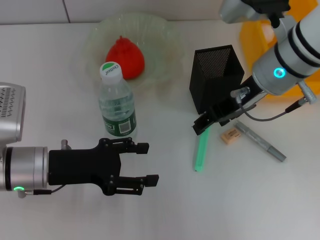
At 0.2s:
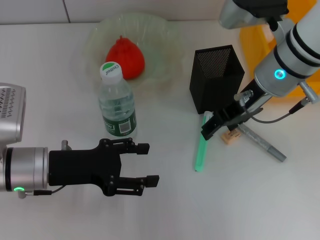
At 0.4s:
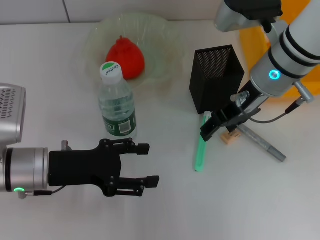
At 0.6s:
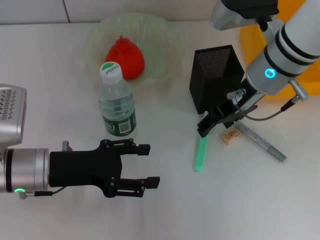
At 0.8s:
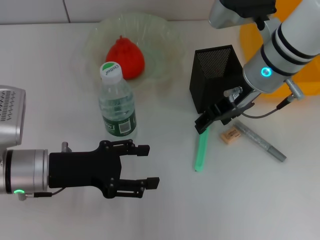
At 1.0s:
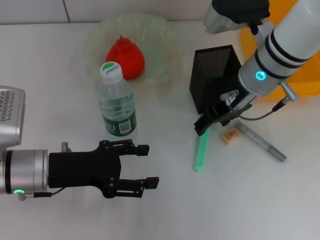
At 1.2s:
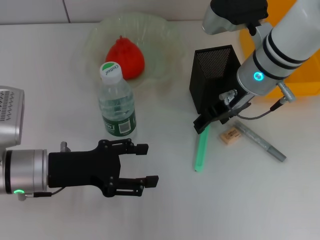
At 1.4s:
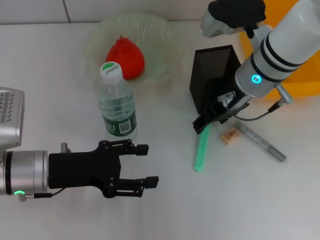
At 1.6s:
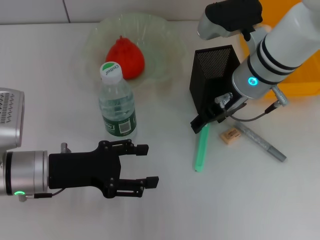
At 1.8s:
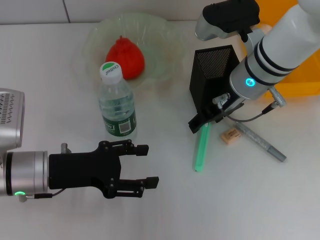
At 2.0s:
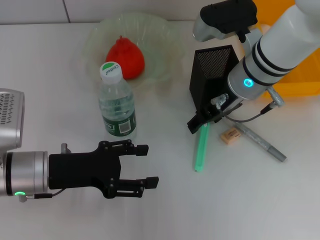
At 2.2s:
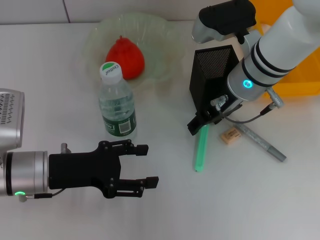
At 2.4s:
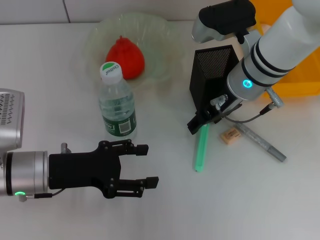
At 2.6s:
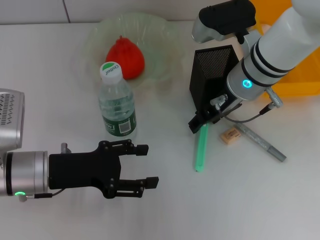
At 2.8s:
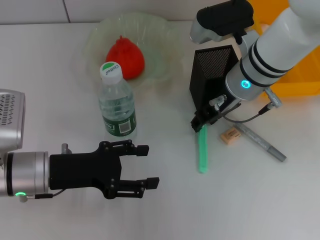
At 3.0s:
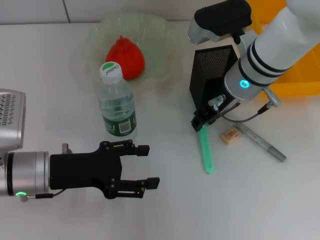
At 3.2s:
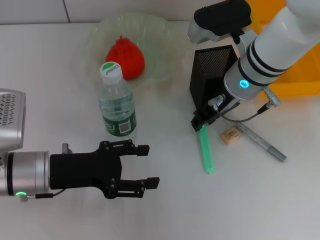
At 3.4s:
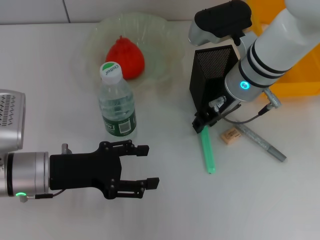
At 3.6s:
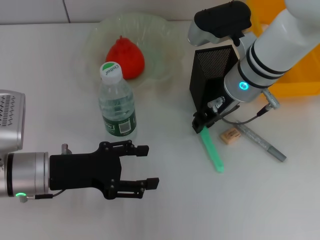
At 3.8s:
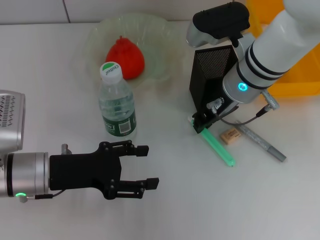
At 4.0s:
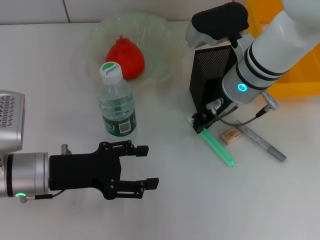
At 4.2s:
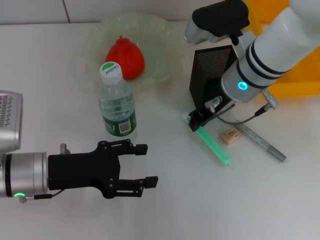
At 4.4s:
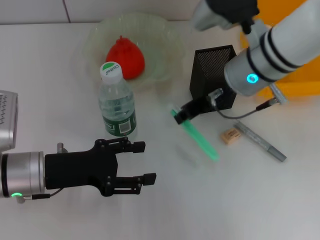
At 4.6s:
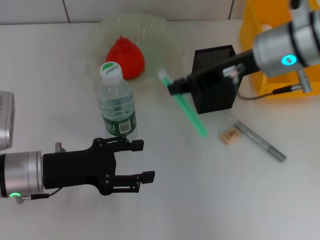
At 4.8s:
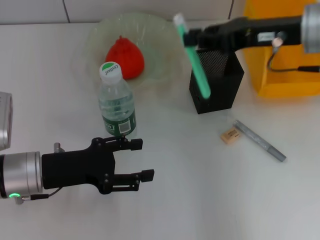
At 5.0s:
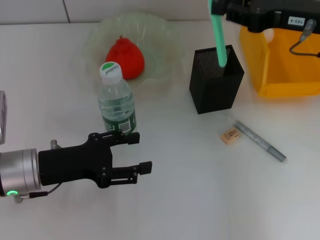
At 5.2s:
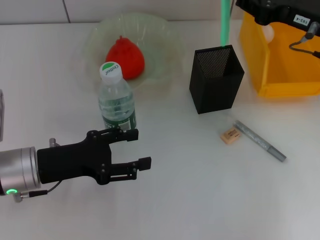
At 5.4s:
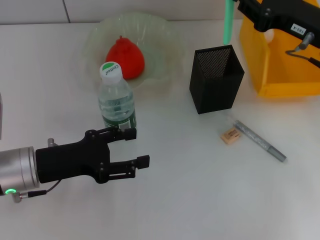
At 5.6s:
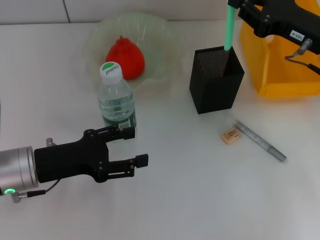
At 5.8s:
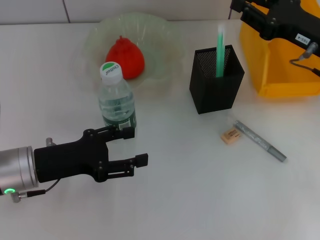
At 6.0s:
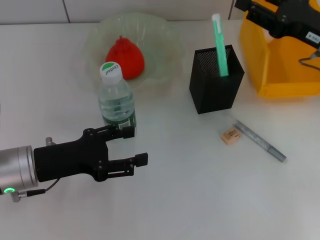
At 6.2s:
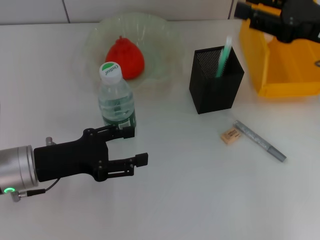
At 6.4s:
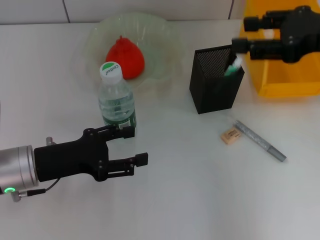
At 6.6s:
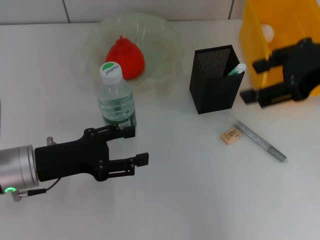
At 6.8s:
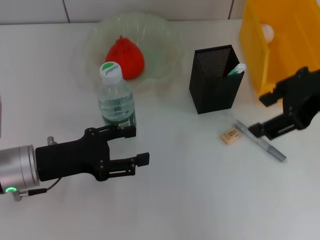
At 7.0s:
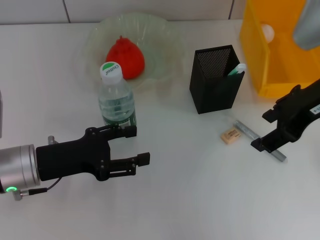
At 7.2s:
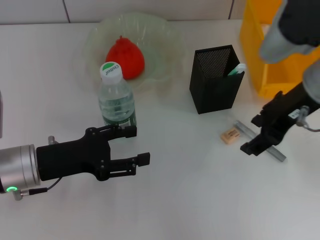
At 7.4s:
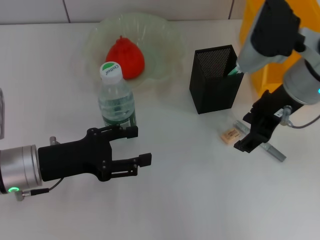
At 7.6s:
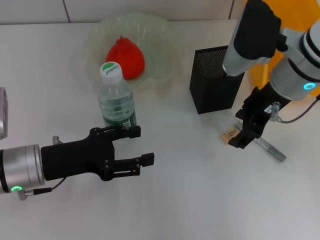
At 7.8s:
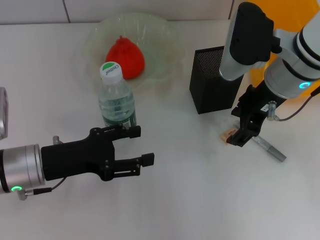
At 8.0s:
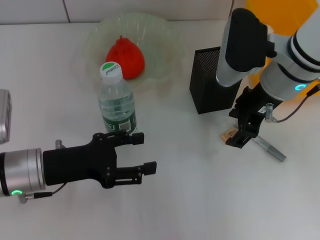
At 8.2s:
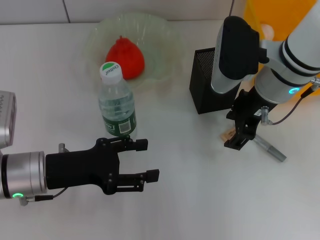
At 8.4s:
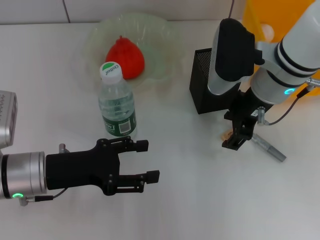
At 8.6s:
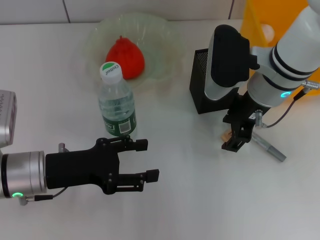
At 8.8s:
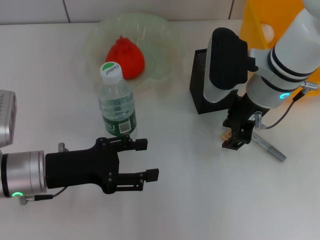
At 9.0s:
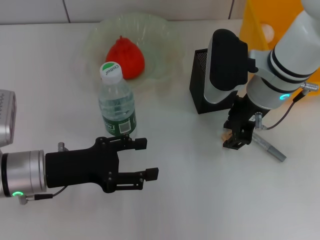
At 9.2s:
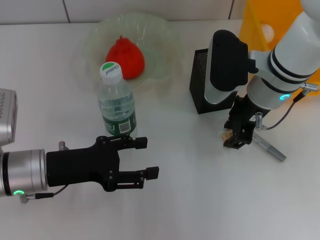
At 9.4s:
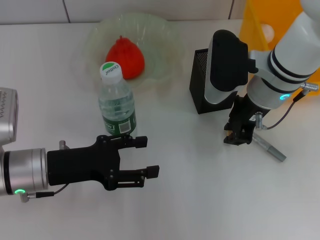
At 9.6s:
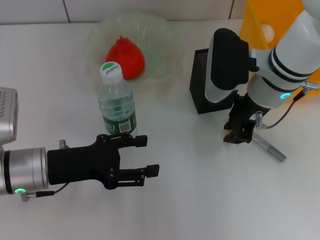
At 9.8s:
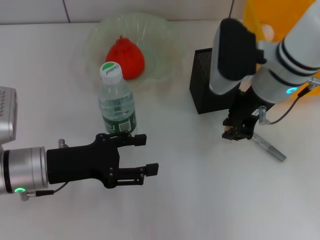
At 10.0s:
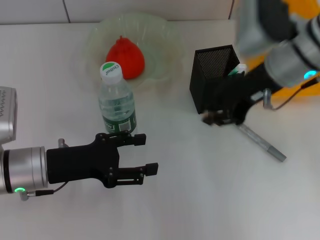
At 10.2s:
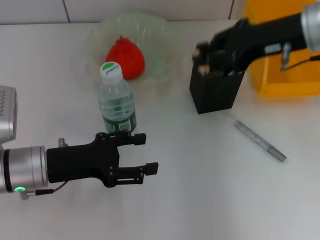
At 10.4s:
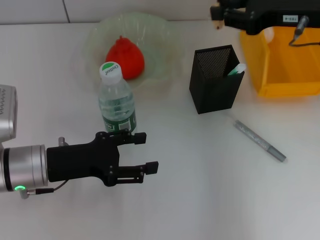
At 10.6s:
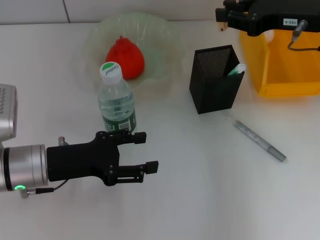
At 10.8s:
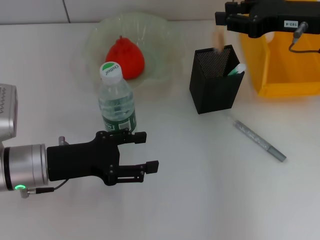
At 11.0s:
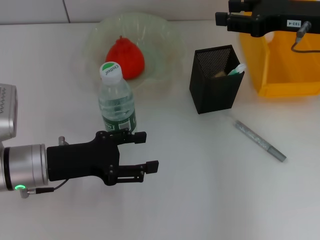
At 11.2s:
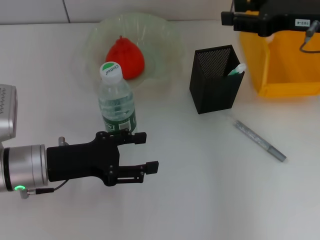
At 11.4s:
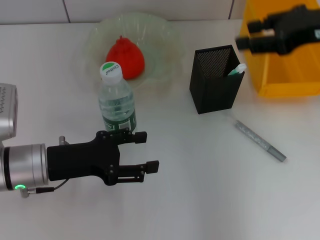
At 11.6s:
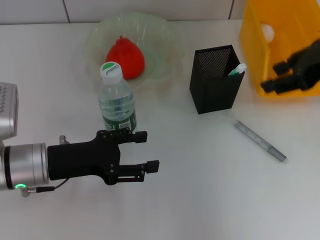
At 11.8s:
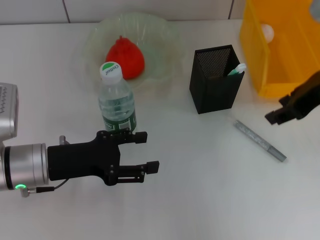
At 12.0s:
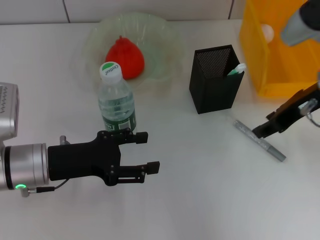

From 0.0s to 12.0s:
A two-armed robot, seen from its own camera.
Step, from 0.0s to 3.8s: Grab the blue utility knife with the right hand.
Step, from 4.0s to 6.2s: Place the blue utility knife into the pen holder with the right hand.
Step, from 6.4s to 9.4s: Grab the eraser with the right hand.
Step, from 9.6s to 11.2s: Put the eraser into the pen holder with the right hand.
From 0.0s to 1.6s: There are only small adjustments of the grippers.
From 1.6s to 3.0s: The right gripper closes.
From 3.0s to 4.4s: The right gripper closes.
From 4.4s to 6.0s: The right gripper heads to the right, covering roughly 15 cm, and opens.
From 6.0s to 7.6s: The right gripper goes roughly 10 cm to the left, and opens up.
From 7.6s to 9.0s: The grippers stay close to where they were, moving slightly.
From 9.0s to 10.4s: The right gripper goes some 10 cm to the right and upward, and closes.
From 10.4s to 12.0s: The right gripper moves roughly 5 cm, and opens up.

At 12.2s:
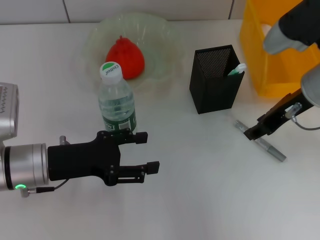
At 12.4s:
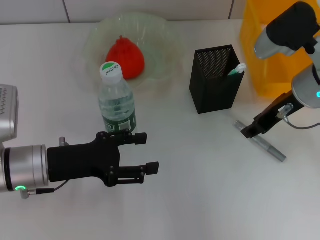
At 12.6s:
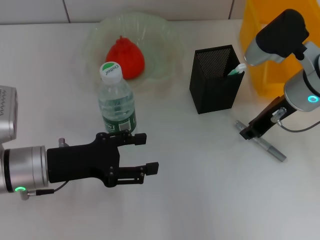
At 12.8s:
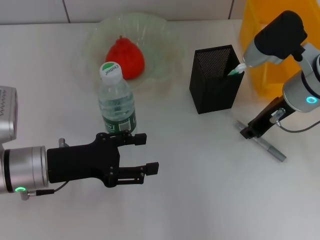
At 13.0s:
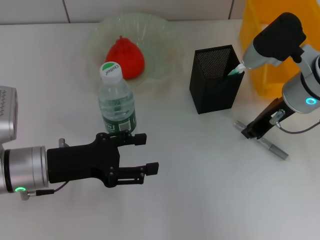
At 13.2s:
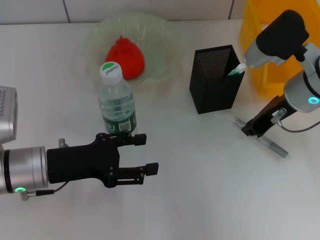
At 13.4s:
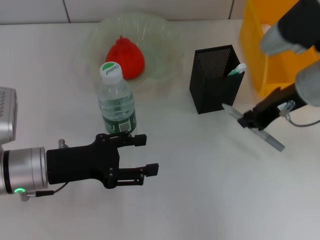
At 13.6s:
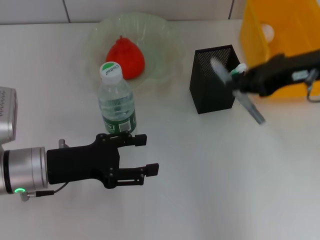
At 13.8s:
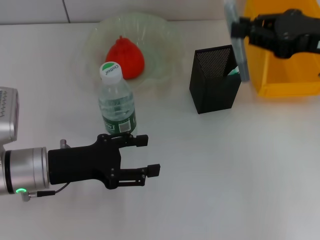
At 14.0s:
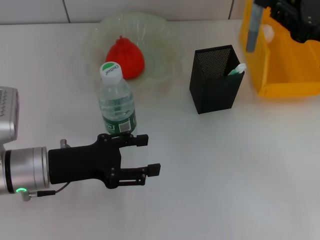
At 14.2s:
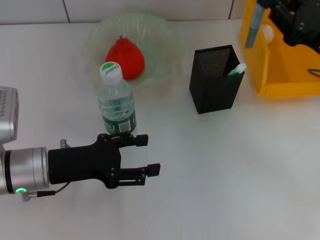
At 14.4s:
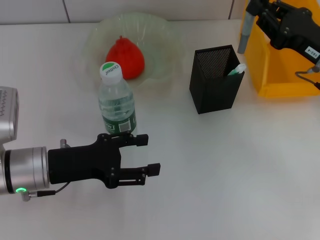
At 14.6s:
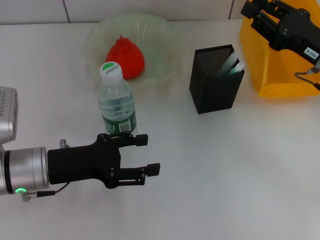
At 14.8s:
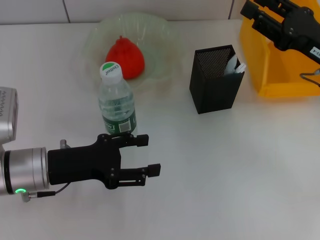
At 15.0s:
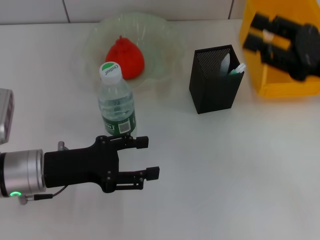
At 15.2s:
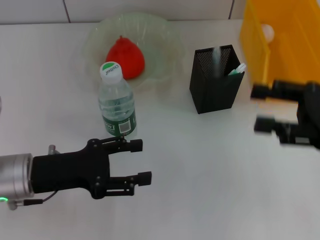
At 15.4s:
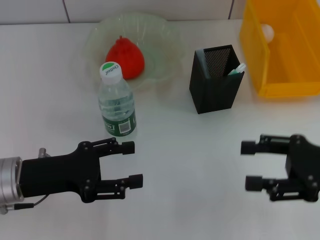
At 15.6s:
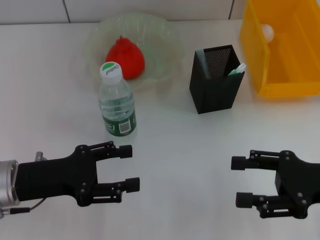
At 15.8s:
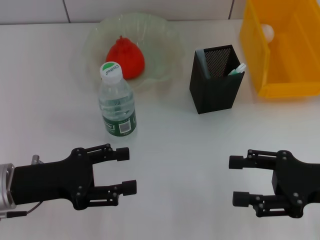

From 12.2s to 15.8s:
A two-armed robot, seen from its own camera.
Step, from 13.0s to 15.0s: Place the gray glue into the pen holder with the right hand.
From 12.2s to 14.0s: The right gripper travels to the right by roughly 5 cm, and closes its fingers.
From 14.0s to 15.8s: The right gripper travels backward and downward by some 10 cm, and opens.

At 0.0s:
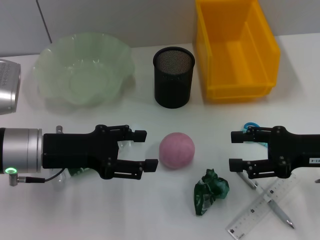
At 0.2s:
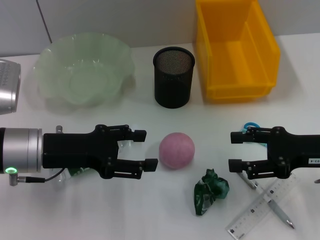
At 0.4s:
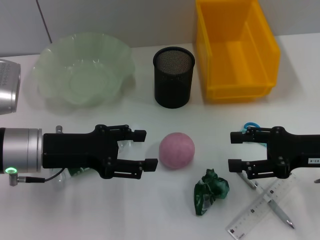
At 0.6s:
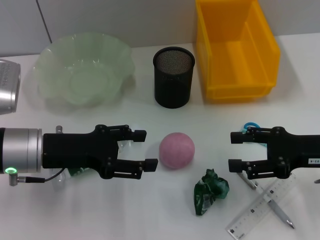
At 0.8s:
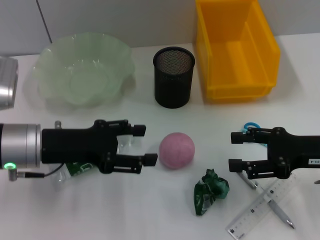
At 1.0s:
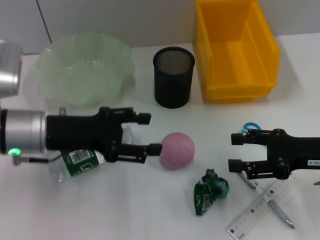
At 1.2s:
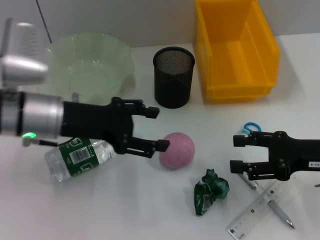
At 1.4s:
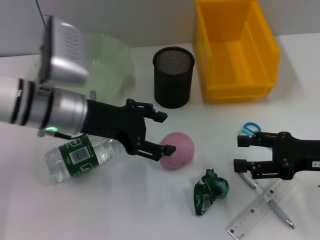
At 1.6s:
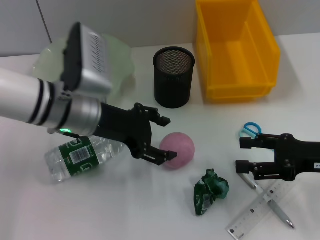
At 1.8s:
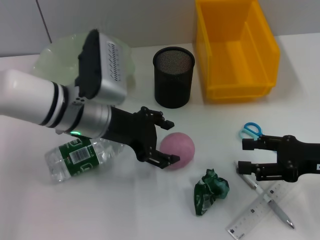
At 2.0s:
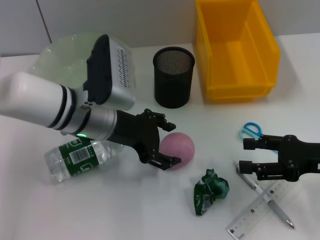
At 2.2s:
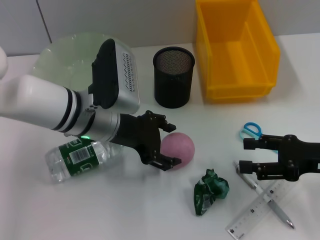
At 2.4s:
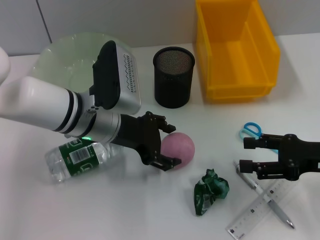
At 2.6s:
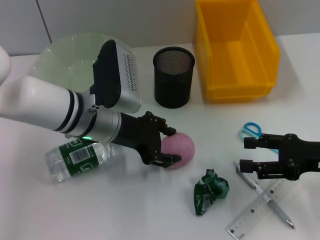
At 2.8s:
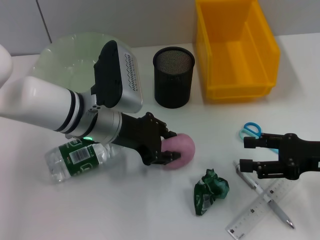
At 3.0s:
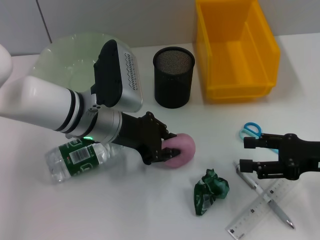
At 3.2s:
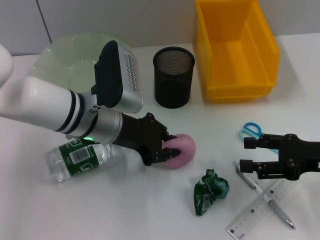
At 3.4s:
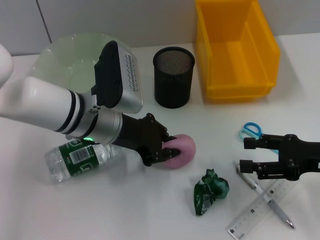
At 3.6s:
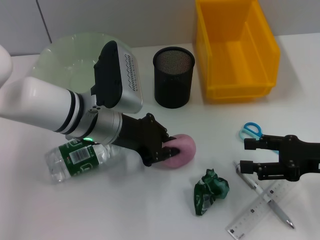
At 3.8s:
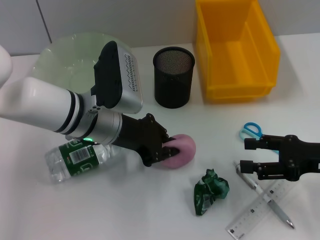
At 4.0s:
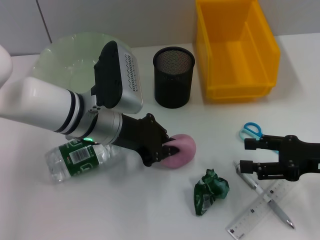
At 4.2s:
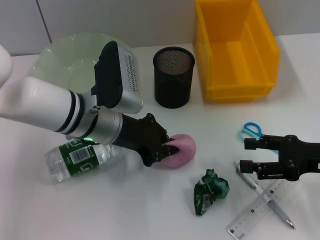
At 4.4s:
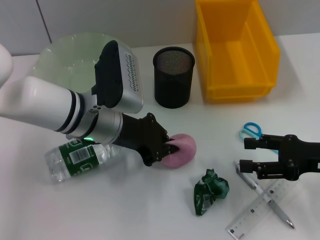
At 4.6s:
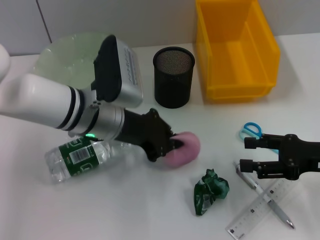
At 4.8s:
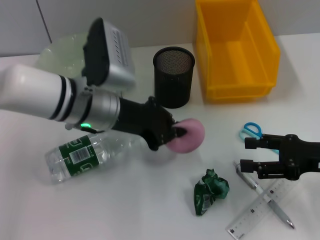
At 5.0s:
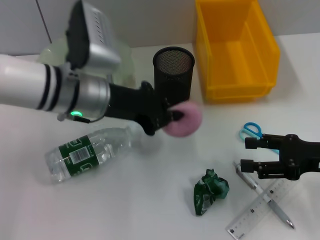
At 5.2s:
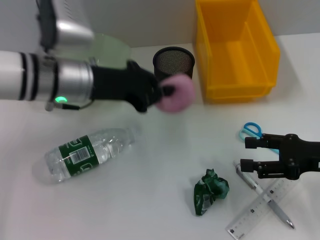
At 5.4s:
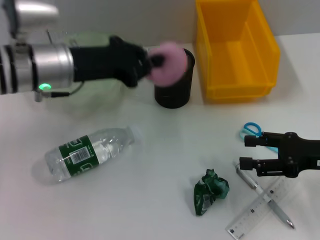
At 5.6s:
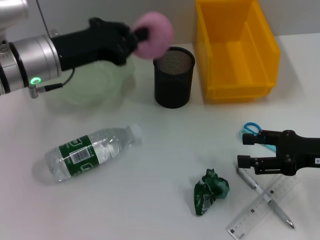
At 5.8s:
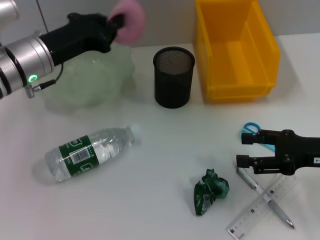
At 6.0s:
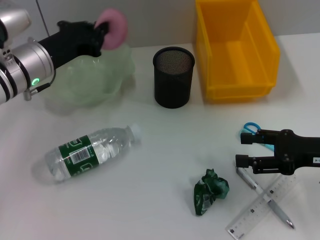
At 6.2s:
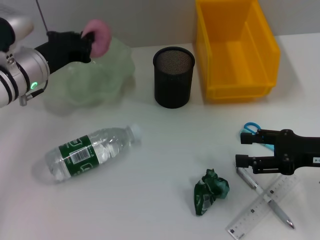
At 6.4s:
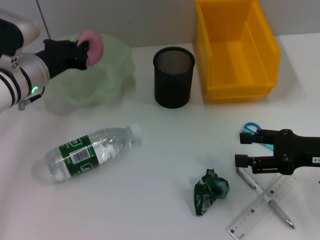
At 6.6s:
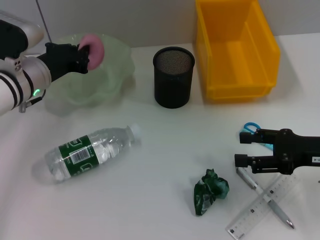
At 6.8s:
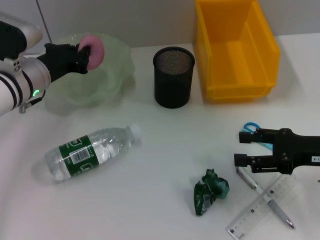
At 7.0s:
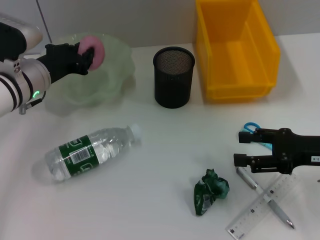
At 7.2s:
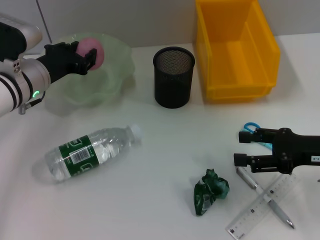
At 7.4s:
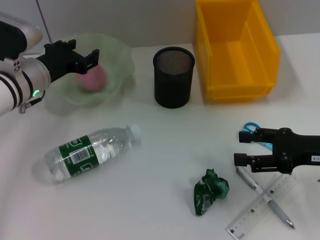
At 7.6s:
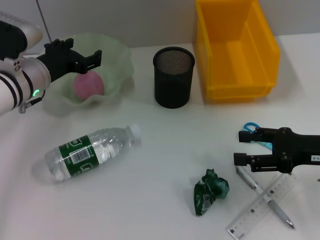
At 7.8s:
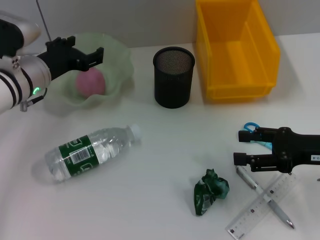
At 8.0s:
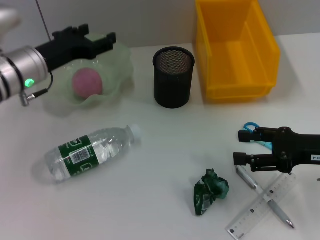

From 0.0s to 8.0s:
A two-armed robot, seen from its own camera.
Step, from 0.0s to 3.2s: Grab the peach with the left hand.
Step, from 3.4s to 7.6s: Place the peach into the fruit bowl with the left hand.
From 0.0s to 1.6s: The left gripper heads to the right and forward, covering roughly 10 cm.
From 1.6s to 3.2s: The left gripper closes its fingers.
From 3.2s to 4.8s: The grippers move only a little.
From 4.8s to 6.4s: The left gripper shifts about 10 cm to the left and forward.
From 6.4s to 8.0s: The left gripper opens.
